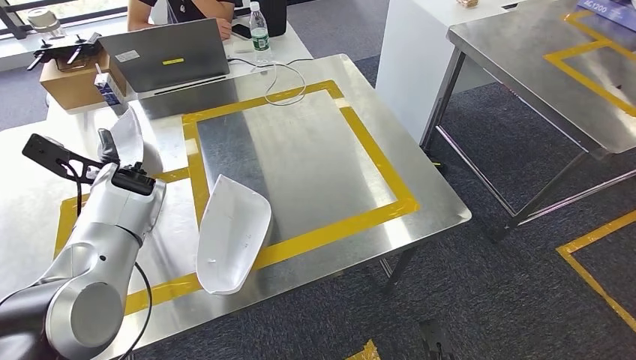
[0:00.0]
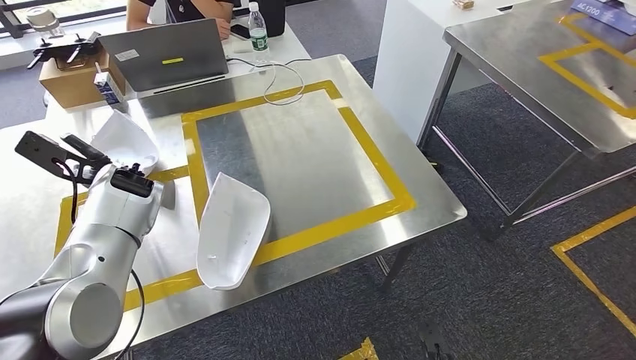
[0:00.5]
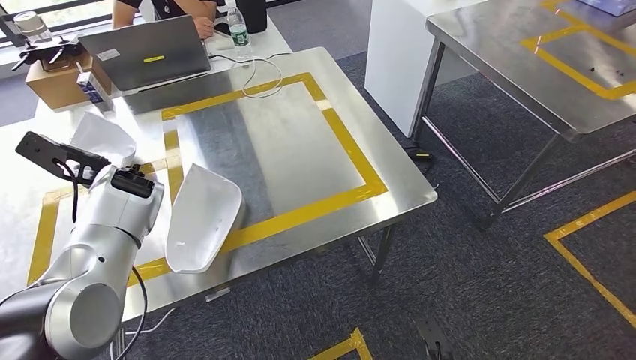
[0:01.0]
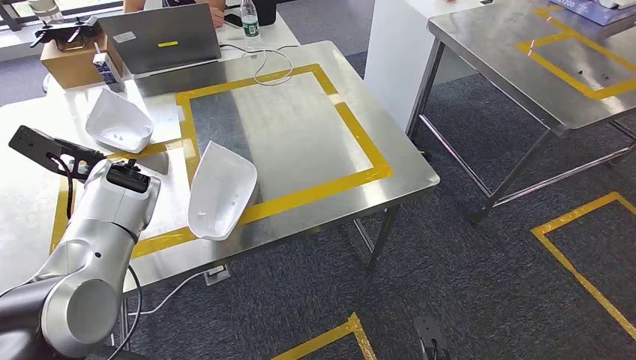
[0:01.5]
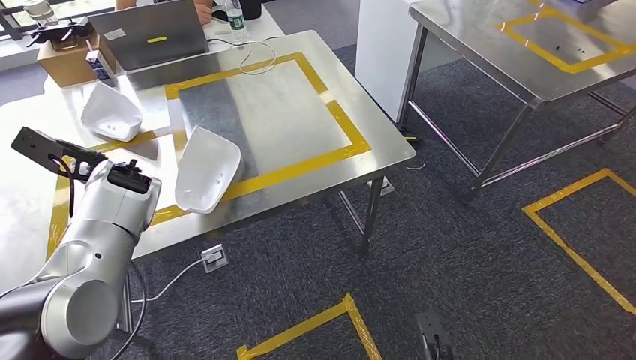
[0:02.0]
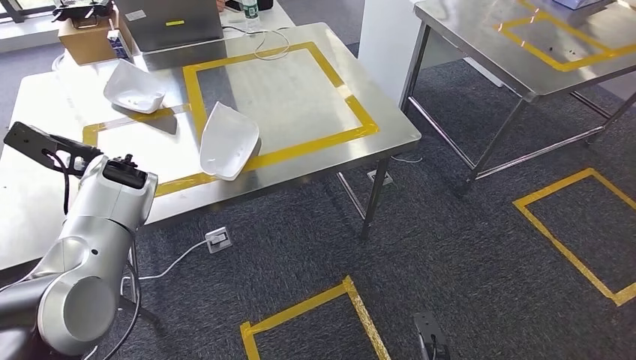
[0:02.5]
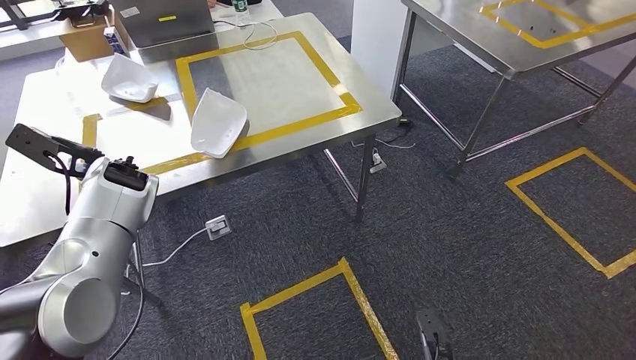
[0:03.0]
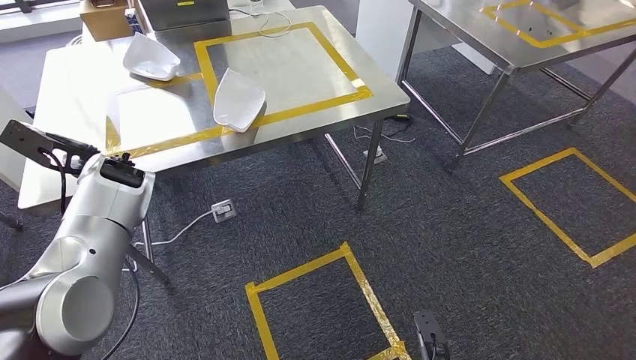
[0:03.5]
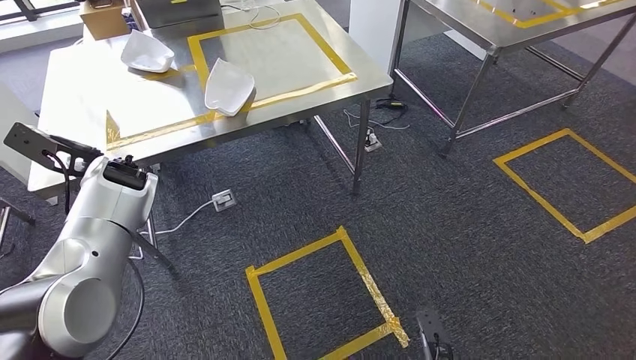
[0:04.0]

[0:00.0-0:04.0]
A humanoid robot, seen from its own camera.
Step, 0:00.0 to 0:01.0: Insert the small component into the corresponding slot on the workbench.
Step, 0:02.0 to 0:04.0: Move to the initial position at the workbench.
